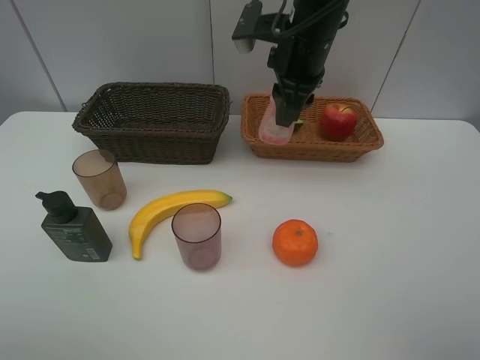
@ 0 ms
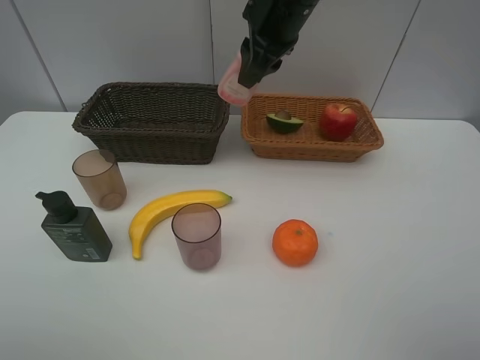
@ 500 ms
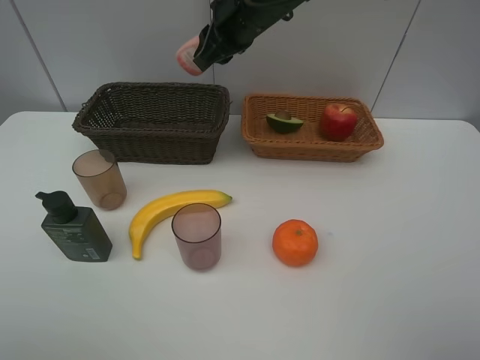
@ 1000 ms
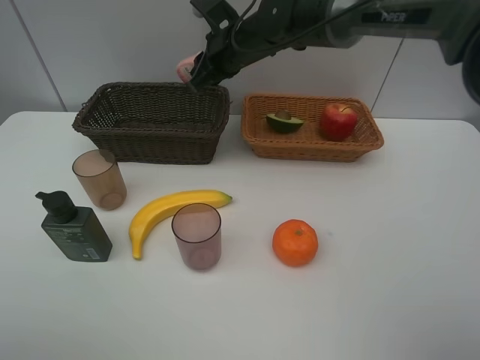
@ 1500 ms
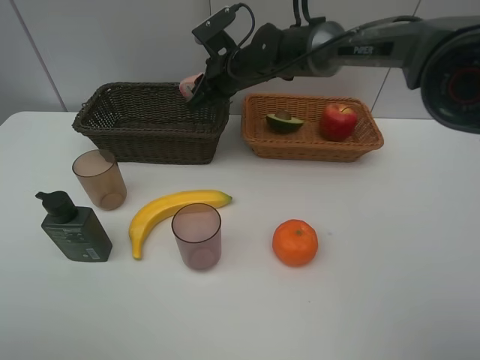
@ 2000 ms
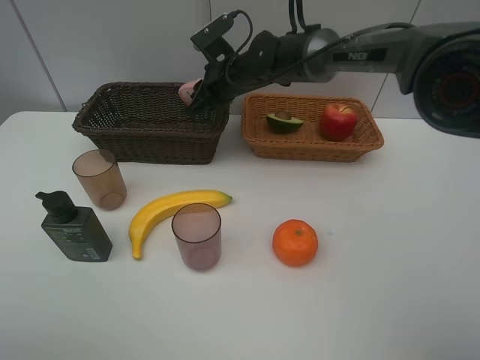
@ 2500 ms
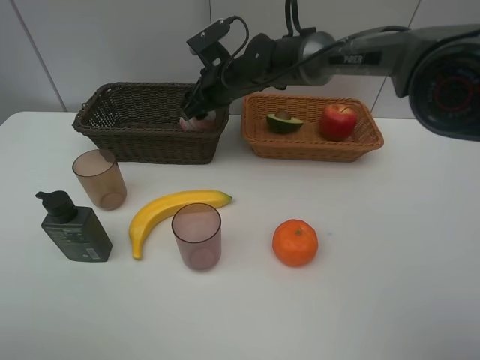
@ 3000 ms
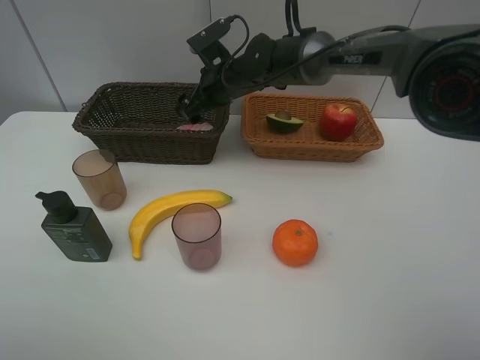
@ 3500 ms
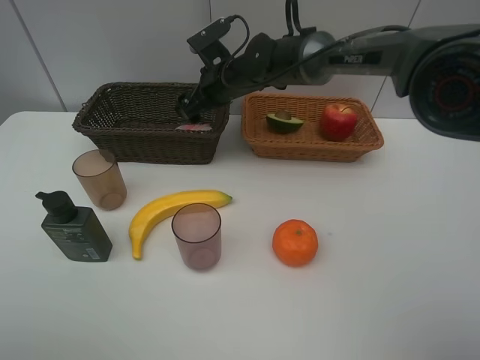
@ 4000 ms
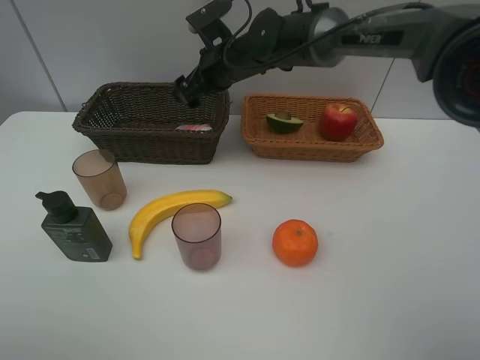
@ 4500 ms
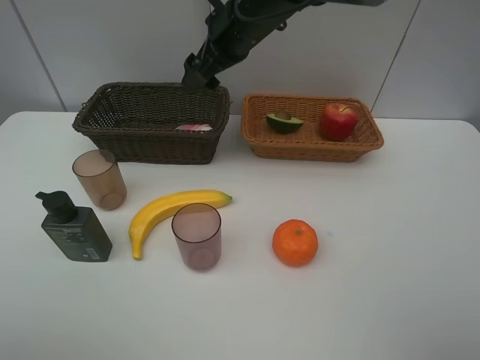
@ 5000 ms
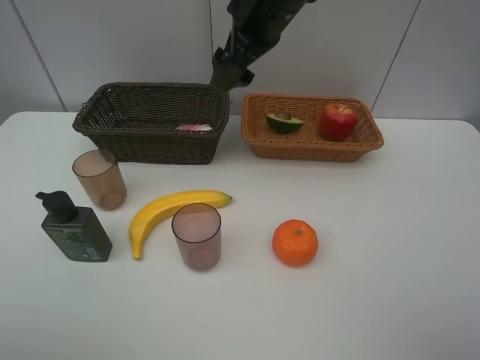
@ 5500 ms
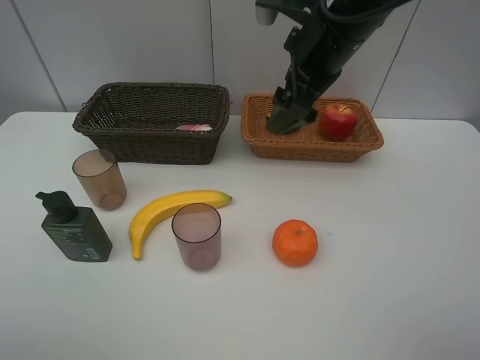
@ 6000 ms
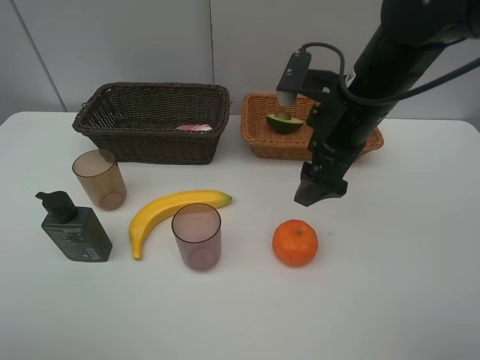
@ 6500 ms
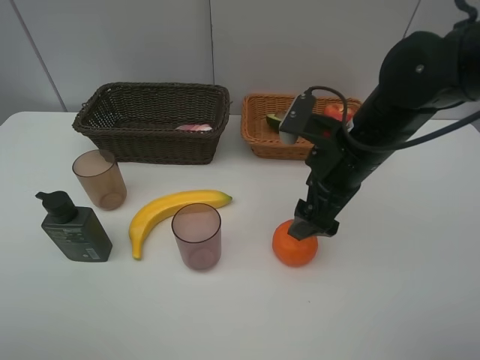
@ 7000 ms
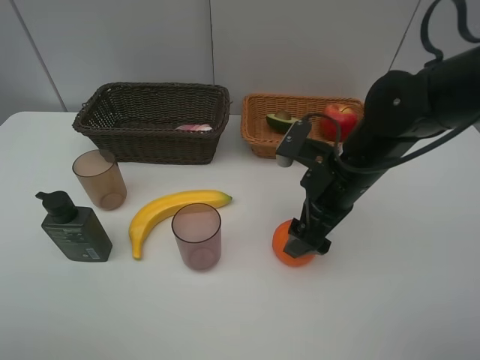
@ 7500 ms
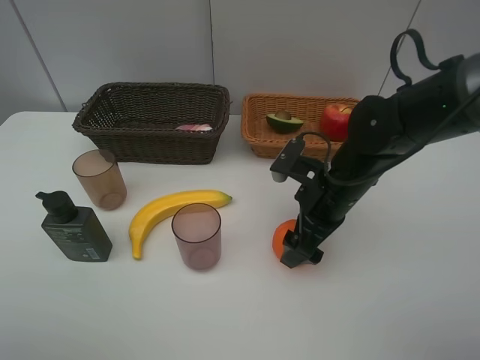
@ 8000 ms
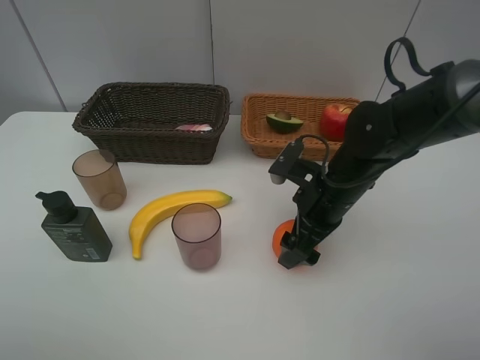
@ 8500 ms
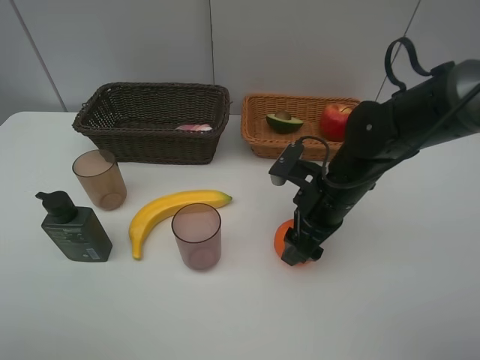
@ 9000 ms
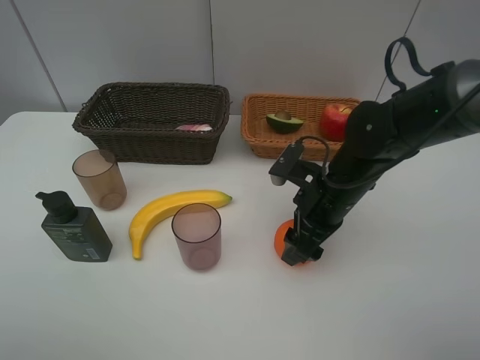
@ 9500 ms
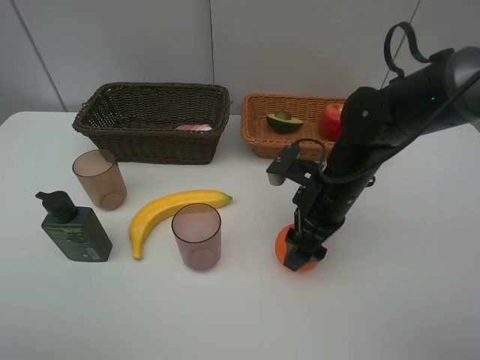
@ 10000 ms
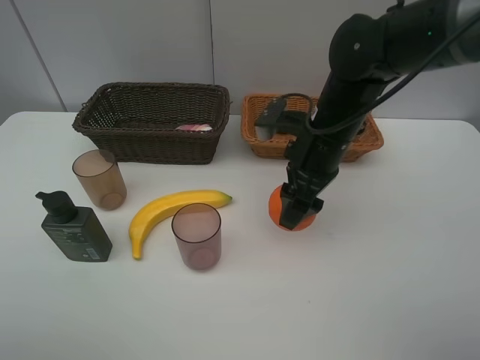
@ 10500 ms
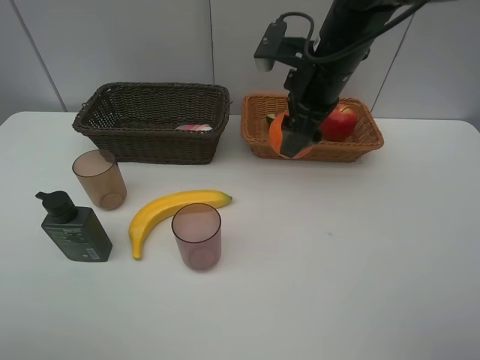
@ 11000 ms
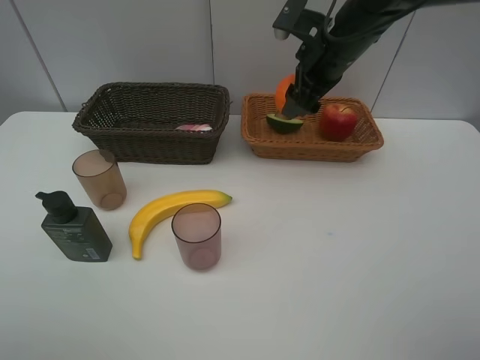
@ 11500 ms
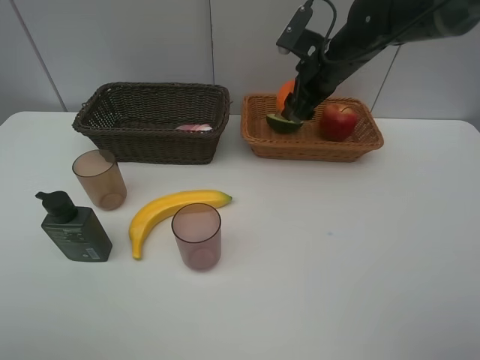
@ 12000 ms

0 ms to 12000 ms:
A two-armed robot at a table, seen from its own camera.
Task of the whole recording: Place multiple objects separately in different baskets.
Step, 0 ms to 4500 ms: Place the laundry detergent in the dark basket with right gripper.
Step, 5000 ms to 10000 ms: Pick up the orange with right gripper.
0 ms to 2000 ms: The right gripper travels downward, forward and to the left by about 15 cm.
2000 ms to 4000 ms: The right gripper opens its fingers.
4000 ms to 6000 ms: The right gripper is displaced backward, upward and to the right by roughly 20 cm.
6000 ms to 8000 ms: The right gripper heads downward, covering about 15 cm.
8000 ms to 10000 ms: The right gripper closes up.
10000 ms to 12000 ms: The right gripper moves forward and upward, roughly 20 cm.

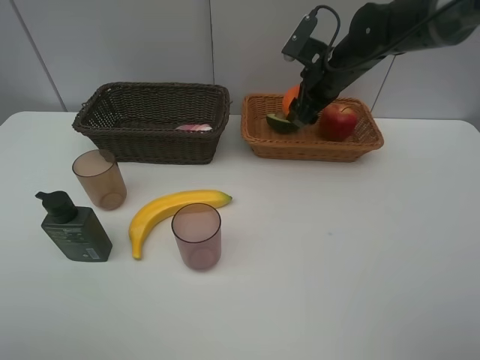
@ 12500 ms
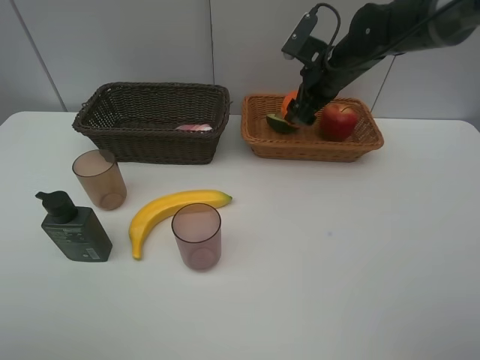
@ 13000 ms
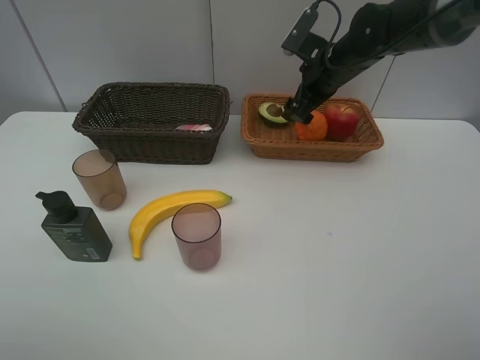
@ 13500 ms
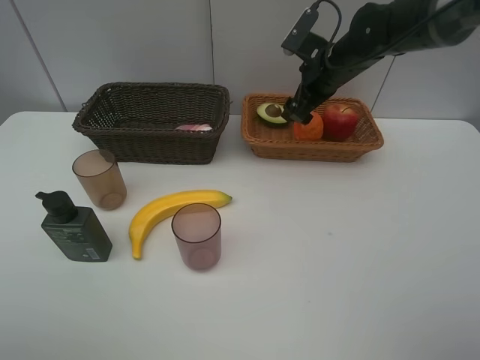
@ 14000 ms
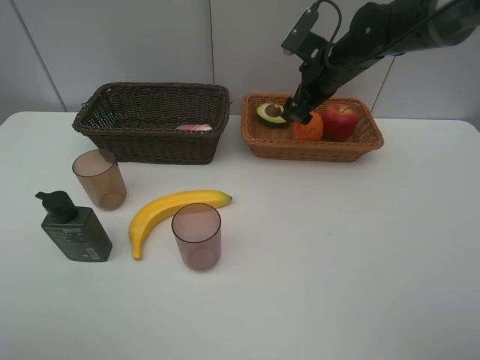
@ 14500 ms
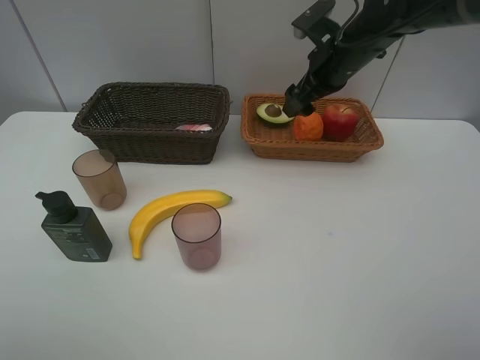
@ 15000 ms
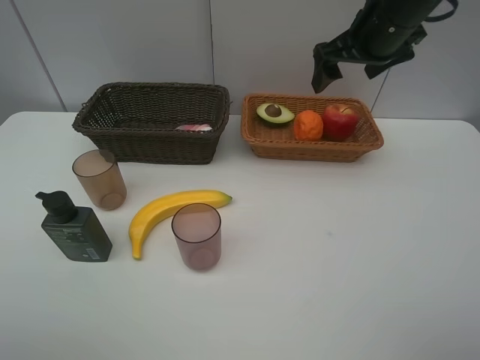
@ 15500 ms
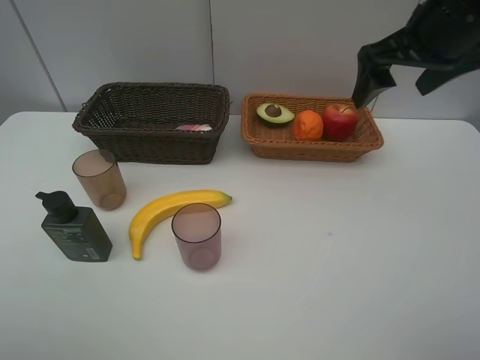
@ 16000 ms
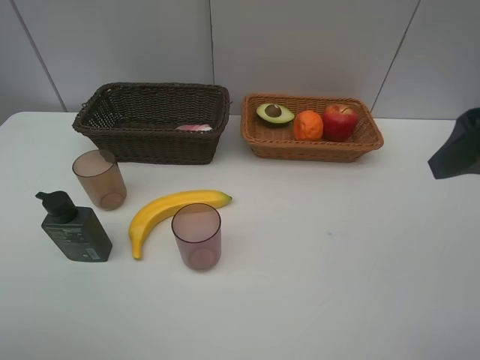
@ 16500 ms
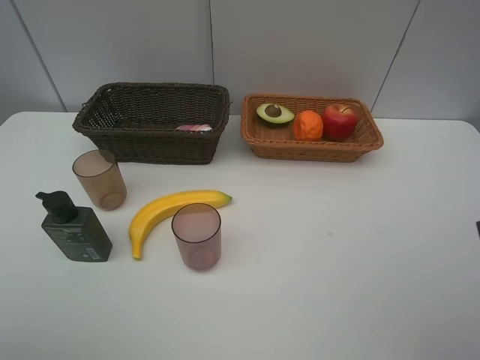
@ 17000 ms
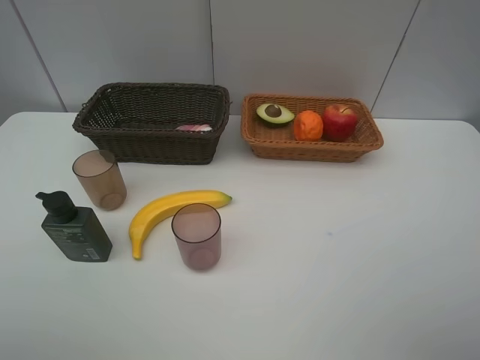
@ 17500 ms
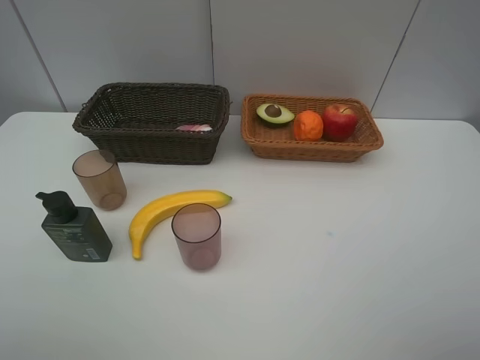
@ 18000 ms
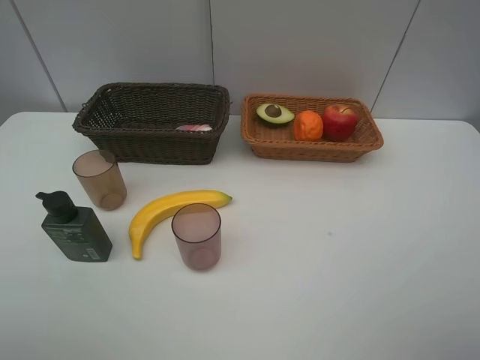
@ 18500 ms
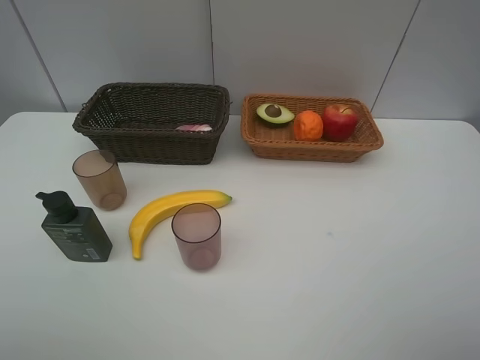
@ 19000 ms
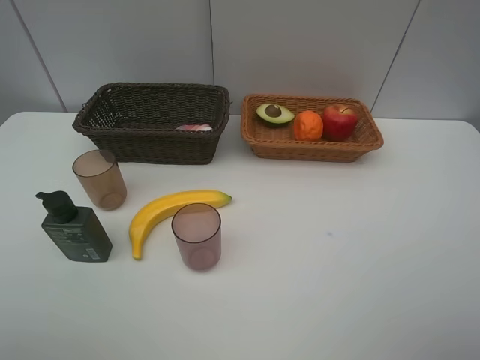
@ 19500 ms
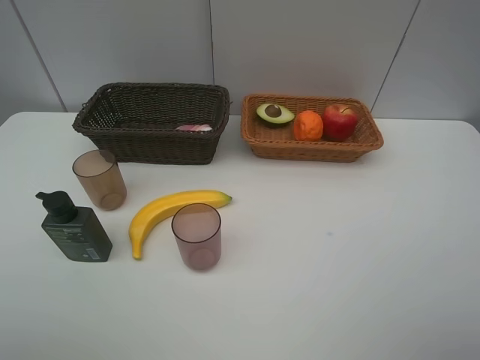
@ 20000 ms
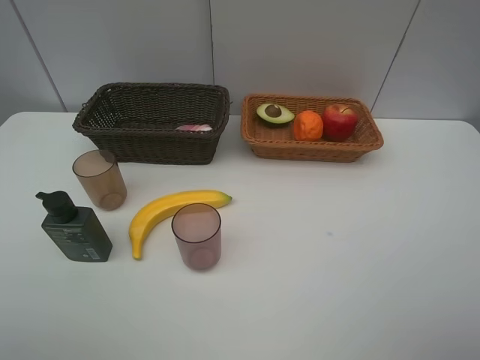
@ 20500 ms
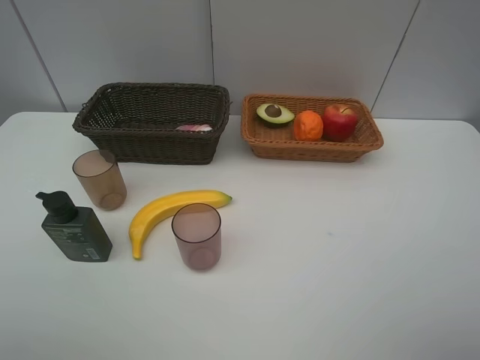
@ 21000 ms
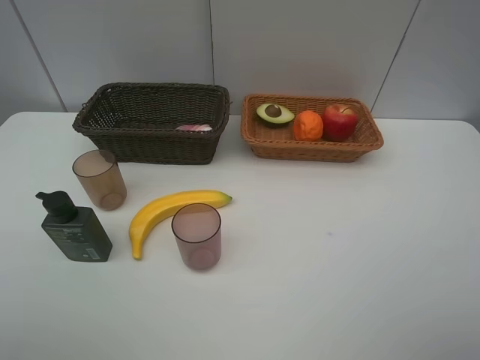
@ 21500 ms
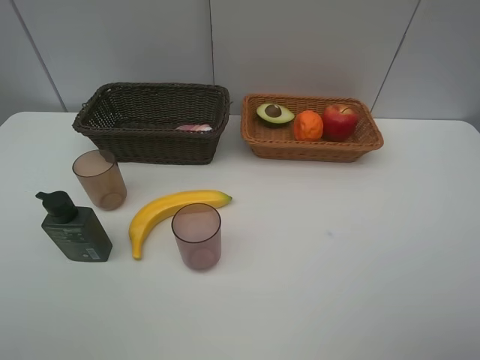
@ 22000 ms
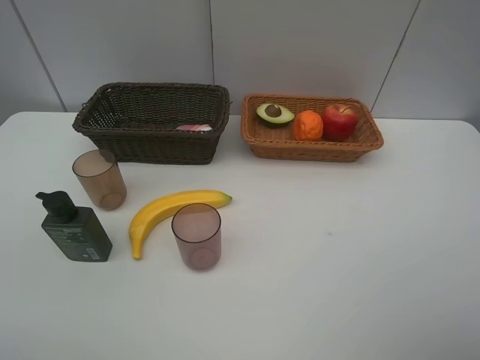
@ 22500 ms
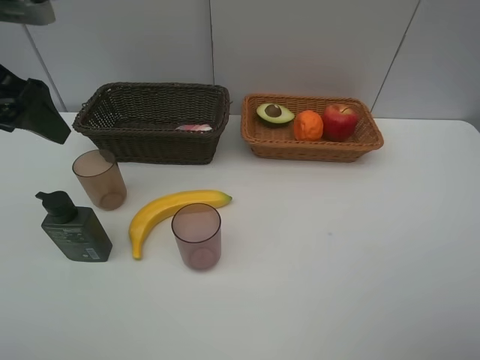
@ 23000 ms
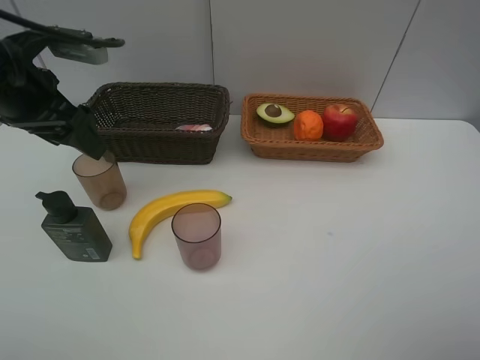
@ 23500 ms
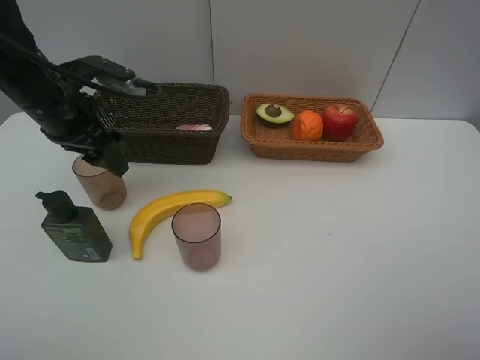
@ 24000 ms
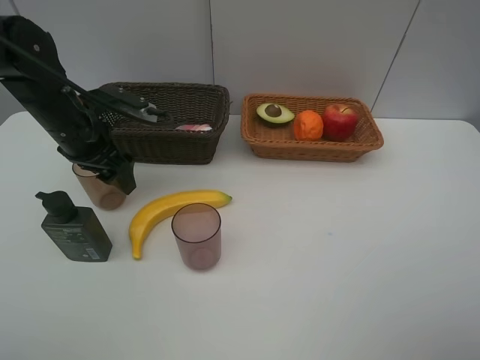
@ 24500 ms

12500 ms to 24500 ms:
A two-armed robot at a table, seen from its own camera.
Task of the whole recording: Place multiple objects separately in different baskets.
12500 ms to 14500 ms: The right gripper opens its fingers.
14500 ms to 16500 ms: The right gripper is displaced backward and upward by roughly 30 cm.
16500 ms to 18500 ms: The right gripper travels backward by about 15 cm.
18500 ms to 20500 ms: Neither gripper changes place.
22500 ms to 24500 ms: The left gripper travels forward and downward by roughly 25 cm.

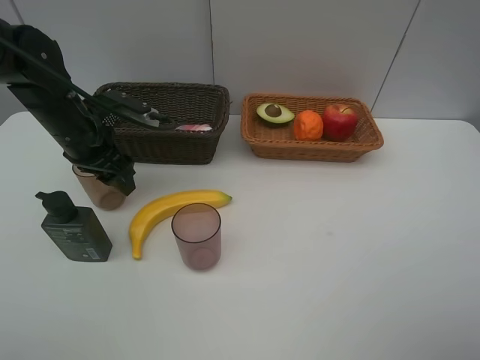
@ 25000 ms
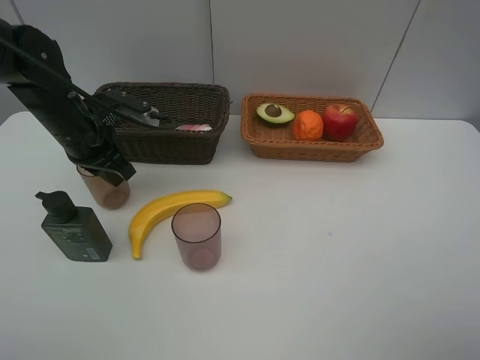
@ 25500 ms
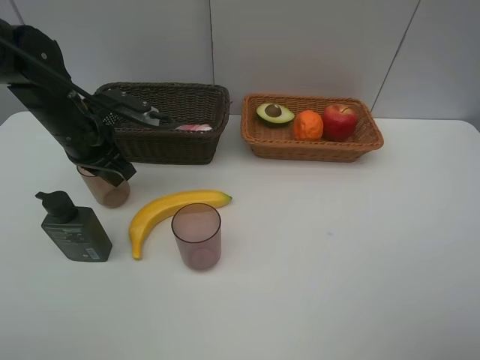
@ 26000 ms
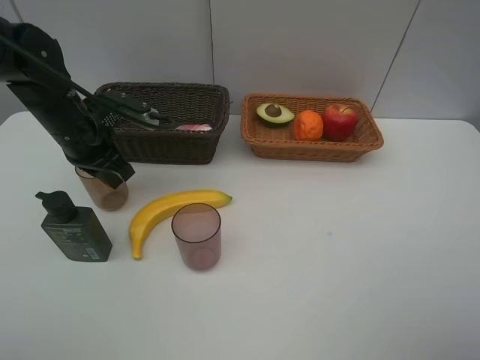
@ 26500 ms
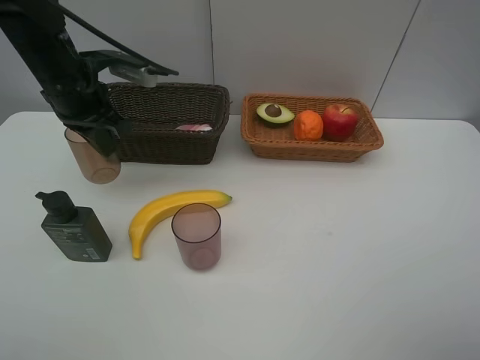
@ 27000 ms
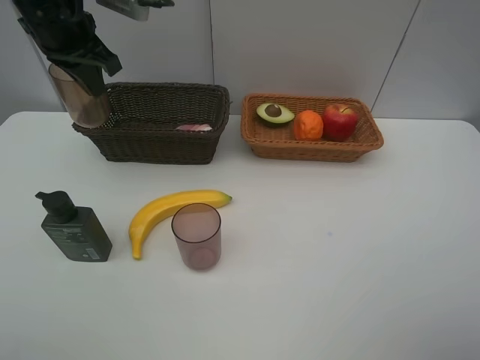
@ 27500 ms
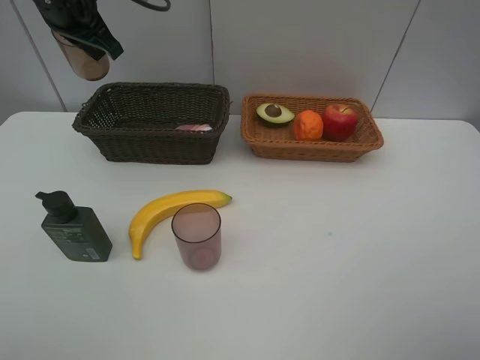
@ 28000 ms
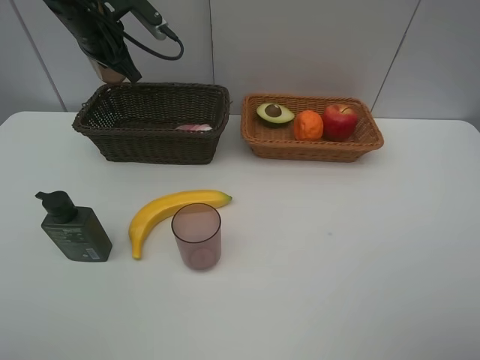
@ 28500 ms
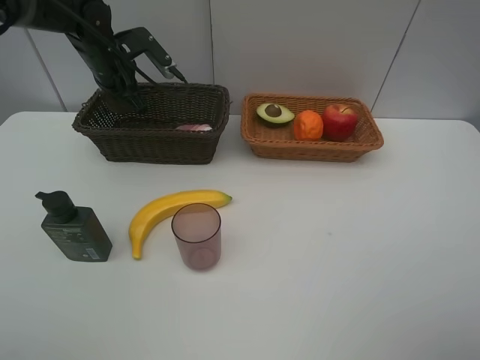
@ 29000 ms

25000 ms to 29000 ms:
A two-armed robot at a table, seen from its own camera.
Task of the whole recording: Place multiple objects separately in different baskets.
25000 ms to 27000 ms: The left gripper is displaced upward by about 5 cm, and closes its fingers.
27000 ms to 29000 ms: The left gripper travels forward by about 10 cm.
